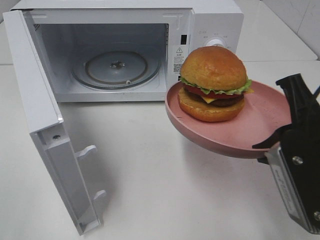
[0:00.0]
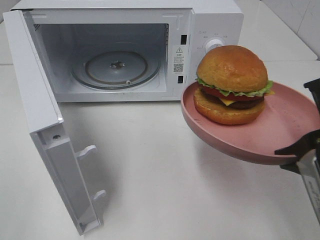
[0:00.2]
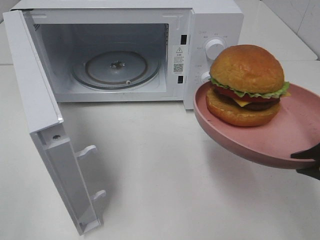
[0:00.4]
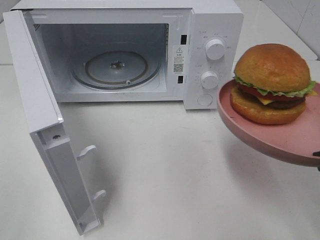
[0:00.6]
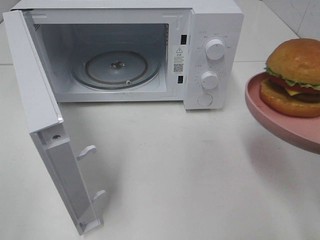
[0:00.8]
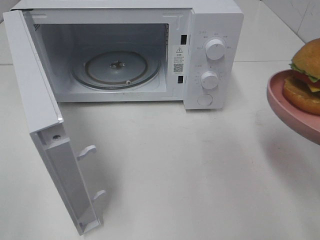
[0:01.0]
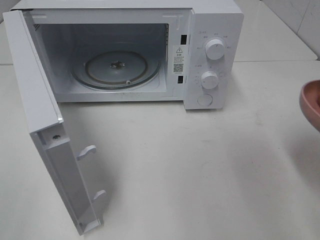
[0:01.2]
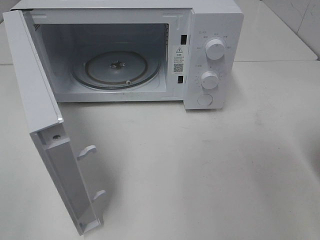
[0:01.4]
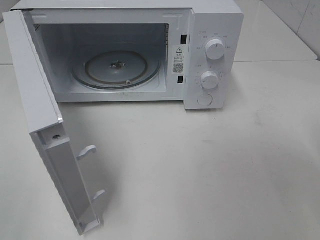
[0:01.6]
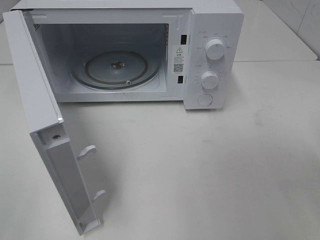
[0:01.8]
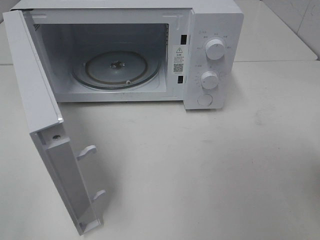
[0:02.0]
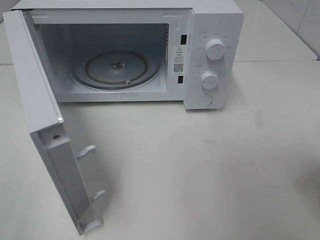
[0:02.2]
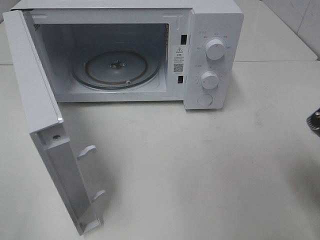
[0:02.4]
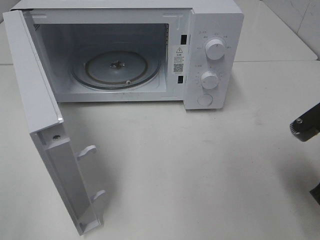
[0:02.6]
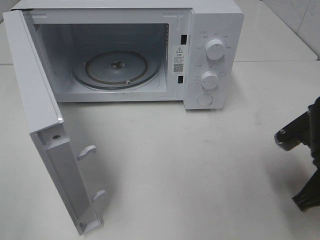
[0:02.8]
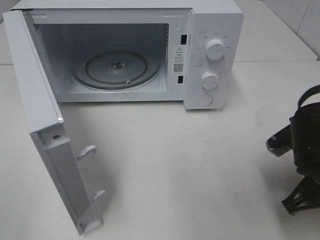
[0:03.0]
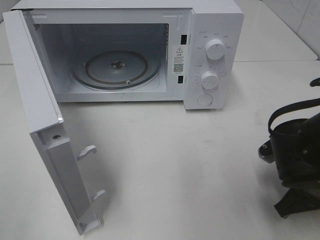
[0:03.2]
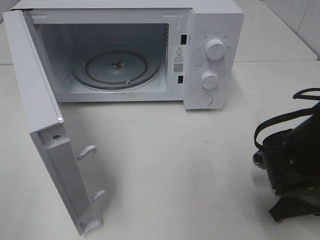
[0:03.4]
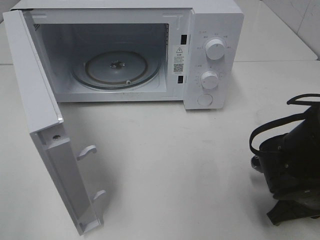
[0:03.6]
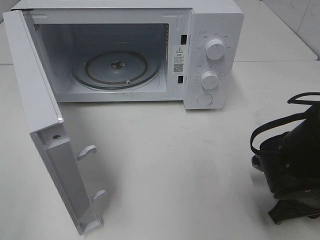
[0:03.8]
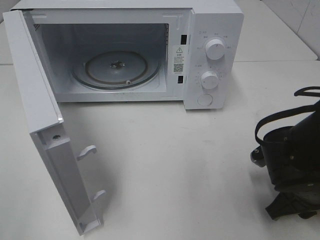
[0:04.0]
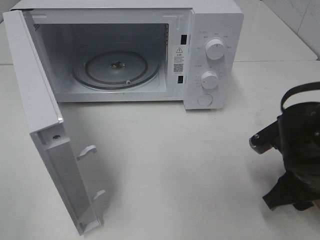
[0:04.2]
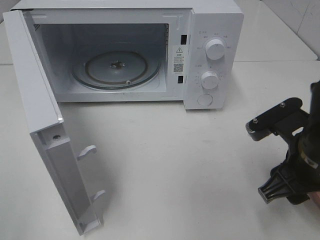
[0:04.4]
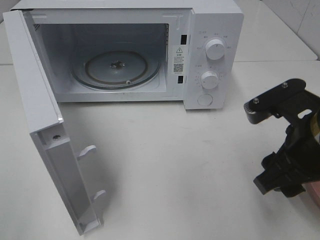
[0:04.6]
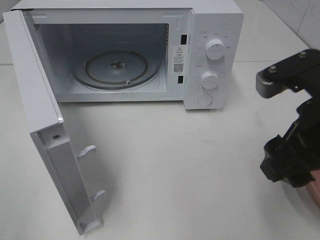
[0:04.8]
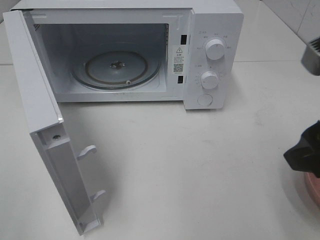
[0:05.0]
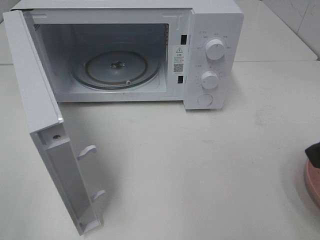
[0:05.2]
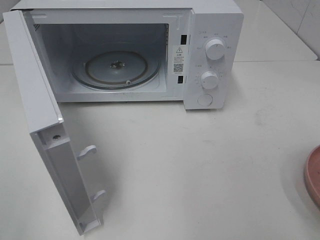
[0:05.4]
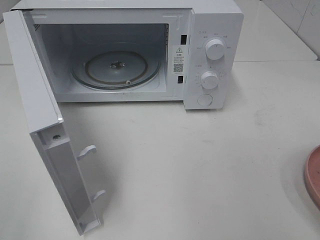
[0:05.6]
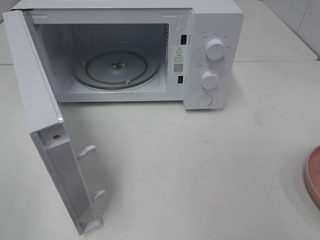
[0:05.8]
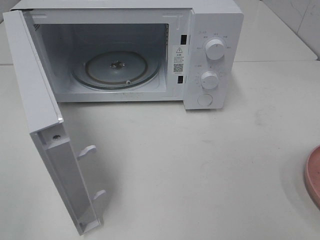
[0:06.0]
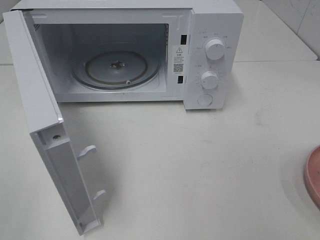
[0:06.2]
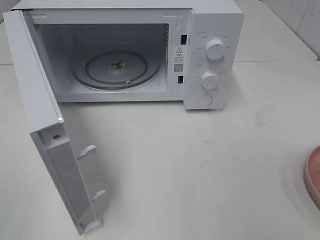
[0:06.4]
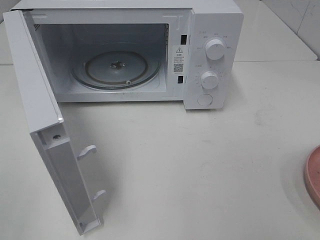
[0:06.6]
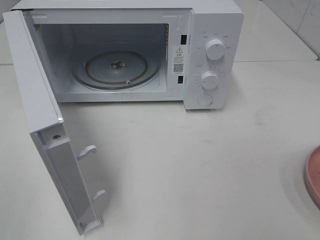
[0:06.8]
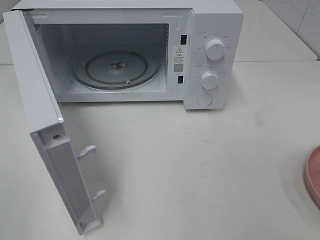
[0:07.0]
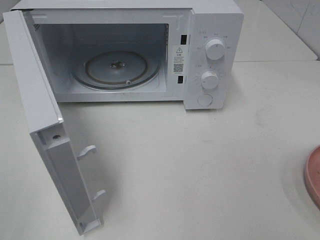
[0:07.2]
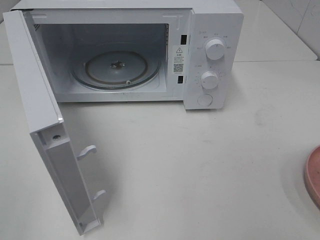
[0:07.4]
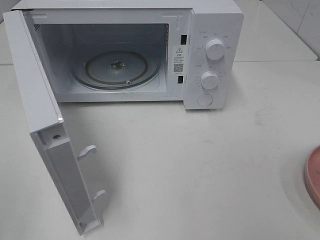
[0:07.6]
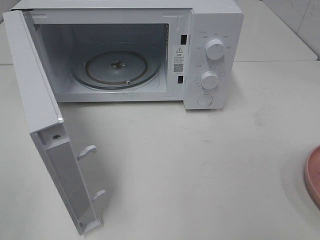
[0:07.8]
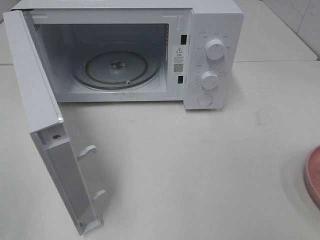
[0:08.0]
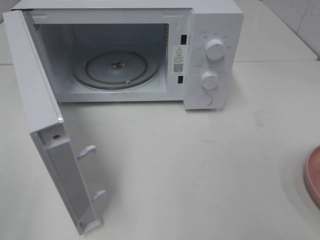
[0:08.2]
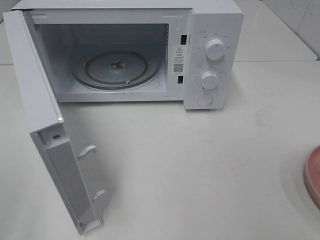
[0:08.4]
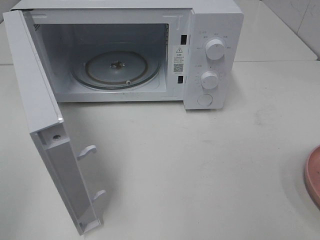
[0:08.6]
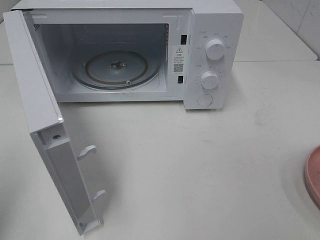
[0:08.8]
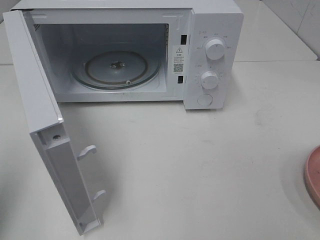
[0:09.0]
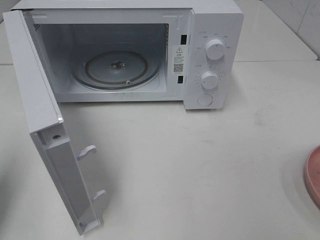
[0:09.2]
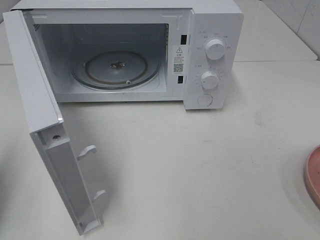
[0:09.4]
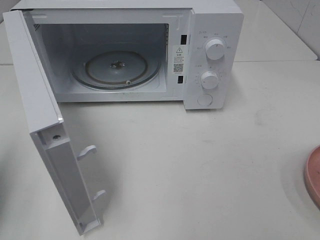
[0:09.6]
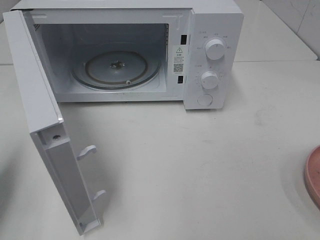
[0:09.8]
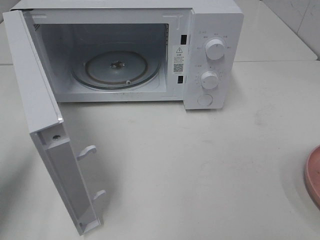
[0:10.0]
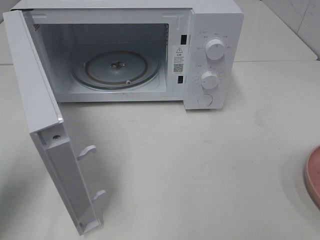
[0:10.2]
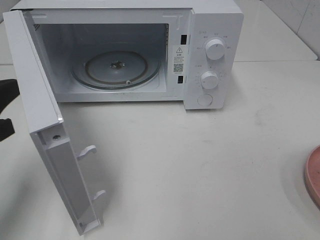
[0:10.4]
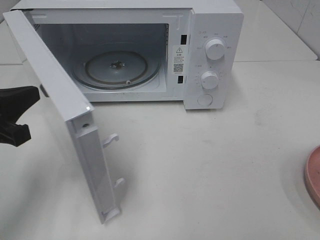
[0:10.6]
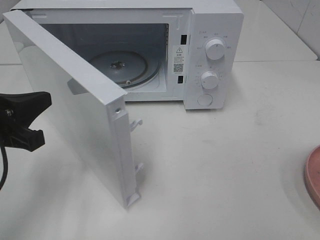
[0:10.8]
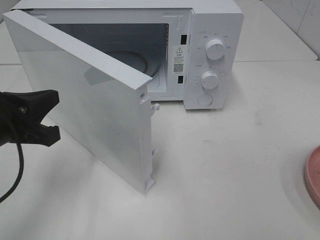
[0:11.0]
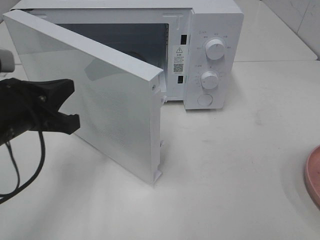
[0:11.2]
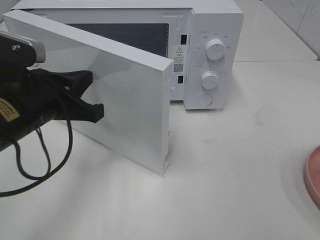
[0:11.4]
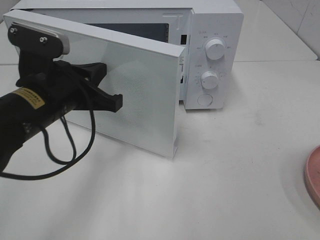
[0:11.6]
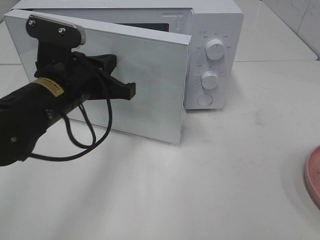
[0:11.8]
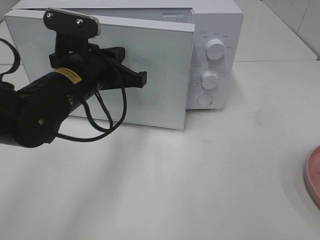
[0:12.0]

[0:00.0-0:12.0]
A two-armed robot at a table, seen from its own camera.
Task of the whole recording: Heat the burger.
Step, 0:00.0 to 0:04.2: Right hand: place the plate on the table.
0:00.0 to 0:01.6: The right gripper travels to the right by some 10 cm.
0:01.6 to 0:03.0: The right gripper shifts about 15 cm downward, forward and to the left.
0:03.0 to 0:04.4: The right gripper opens.
0:04.4 to 0:06.0: The right gripper is displaced backward, upward and to the right by some 20 cm.
0:07.6 to 0:09.0: The left gripper is displaced forward by approximately 10 cm, and closes its fingers.
0:09.0 to 0:10.4: The left gripper heads downward, forward and to the right, covering roughly 15 cm.
0:10.4 to 0:12.0: The left gripper shifts about 20 cm to the right and forward.

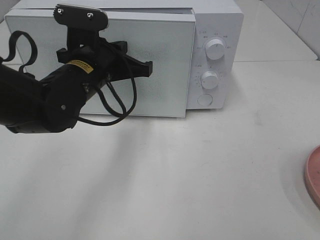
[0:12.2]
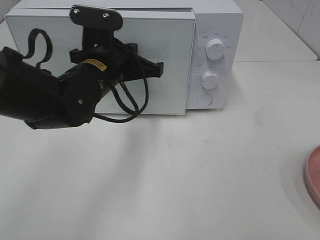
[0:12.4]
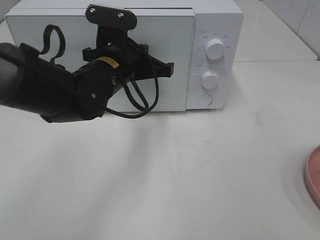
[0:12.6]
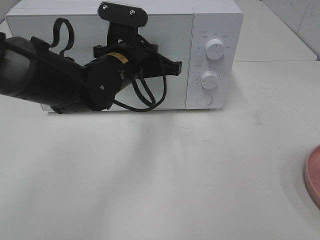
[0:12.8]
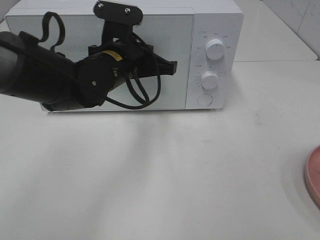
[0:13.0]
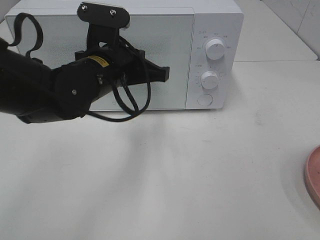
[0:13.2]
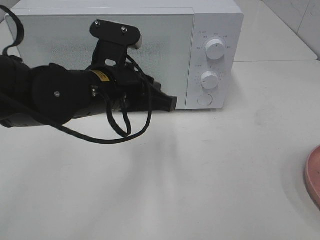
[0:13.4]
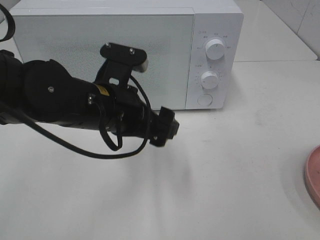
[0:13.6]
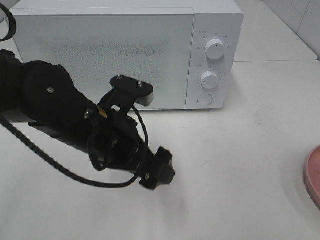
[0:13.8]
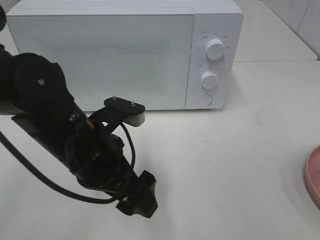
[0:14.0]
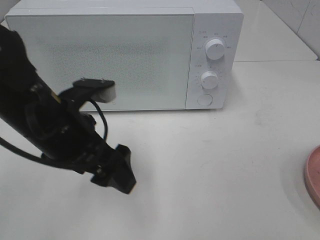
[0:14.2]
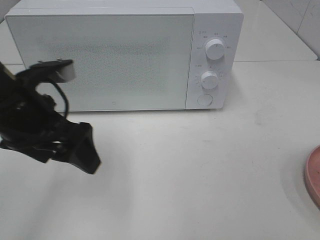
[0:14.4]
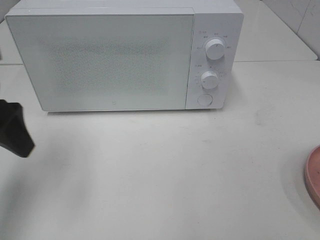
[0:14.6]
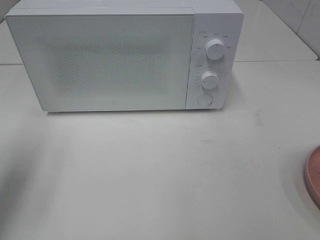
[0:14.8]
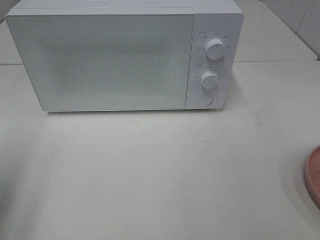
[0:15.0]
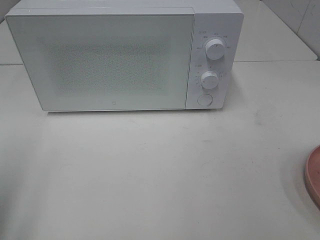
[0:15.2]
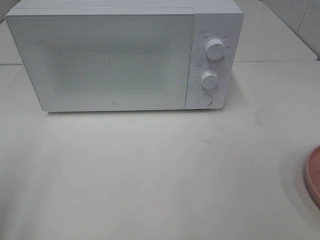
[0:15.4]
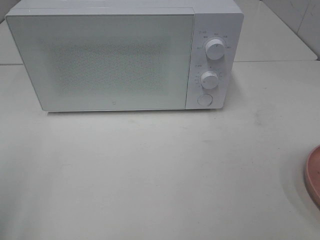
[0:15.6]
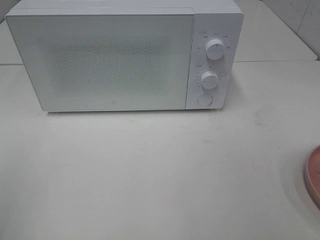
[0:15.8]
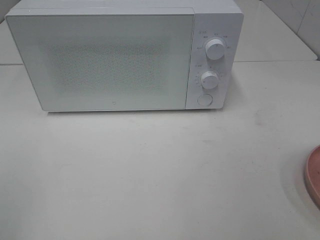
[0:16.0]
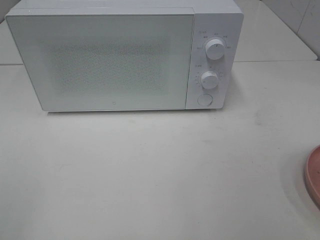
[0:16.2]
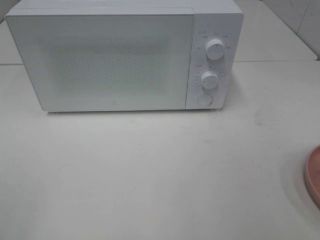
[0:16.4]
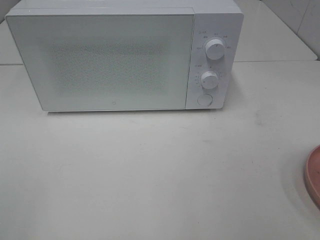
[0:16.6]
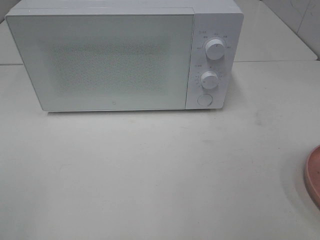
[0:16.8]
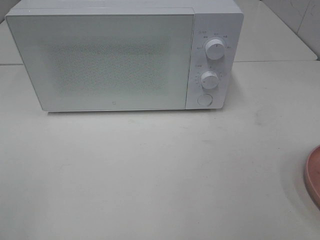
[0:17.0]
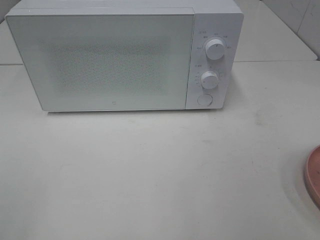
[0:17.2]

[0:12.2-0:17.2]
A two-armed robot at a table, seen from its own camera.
Task of the whole recording: Heat the burger.
0:12.2 to 0:13.8: The left gripper shifts roughly 10 cm backward, and opens.
0:13.8 to 0:15.6: The left gripper goes about 30 cm to the left, backward and upward.

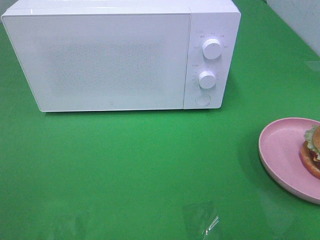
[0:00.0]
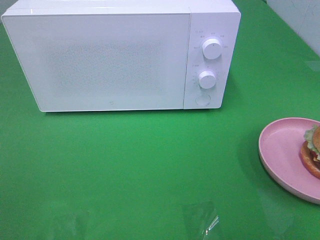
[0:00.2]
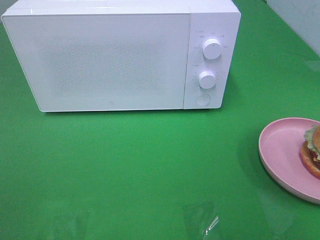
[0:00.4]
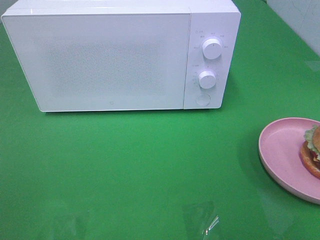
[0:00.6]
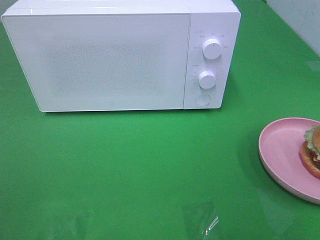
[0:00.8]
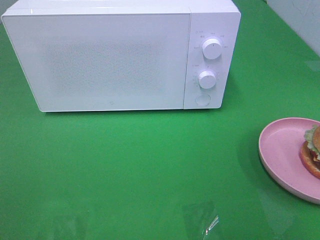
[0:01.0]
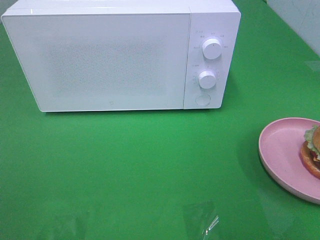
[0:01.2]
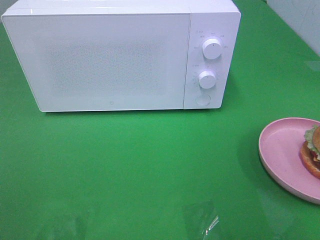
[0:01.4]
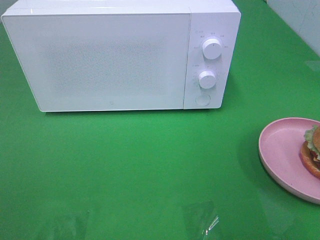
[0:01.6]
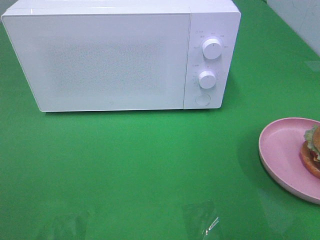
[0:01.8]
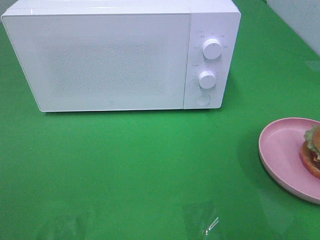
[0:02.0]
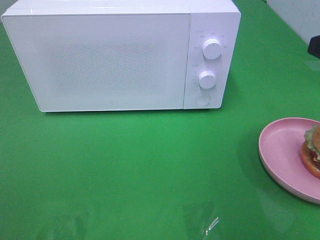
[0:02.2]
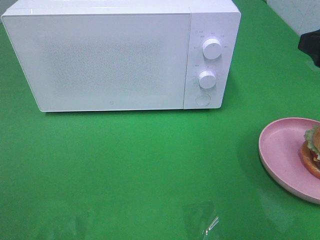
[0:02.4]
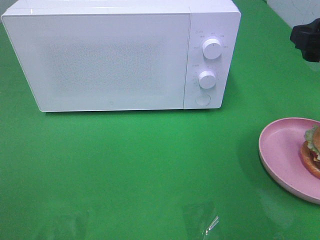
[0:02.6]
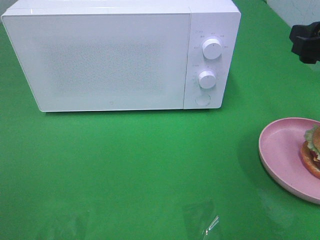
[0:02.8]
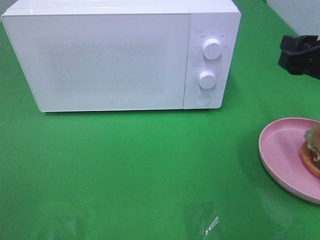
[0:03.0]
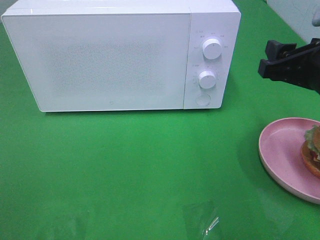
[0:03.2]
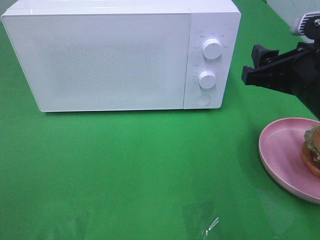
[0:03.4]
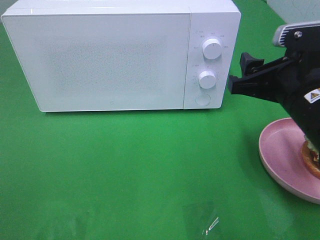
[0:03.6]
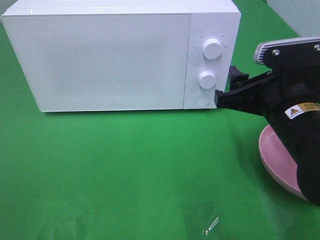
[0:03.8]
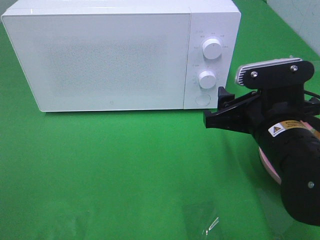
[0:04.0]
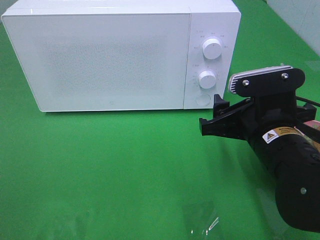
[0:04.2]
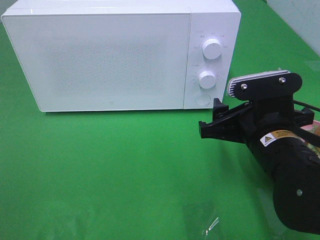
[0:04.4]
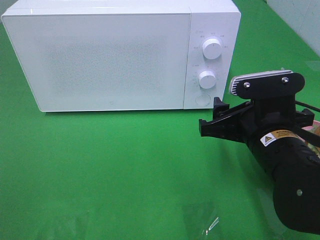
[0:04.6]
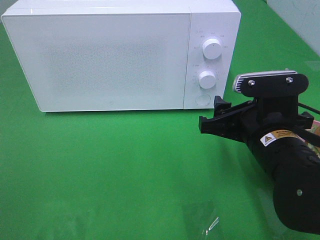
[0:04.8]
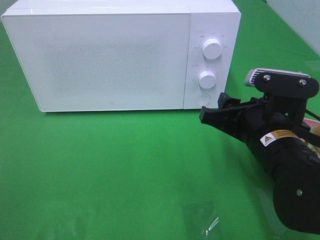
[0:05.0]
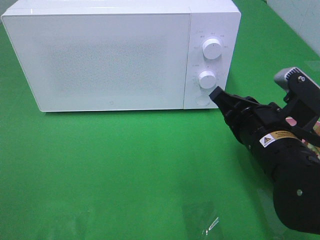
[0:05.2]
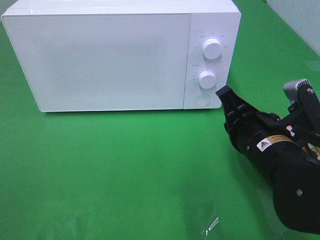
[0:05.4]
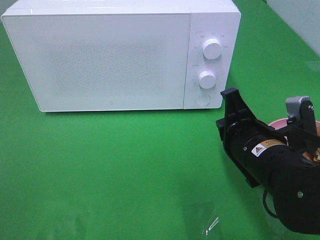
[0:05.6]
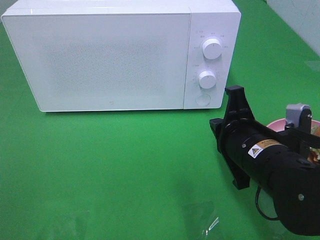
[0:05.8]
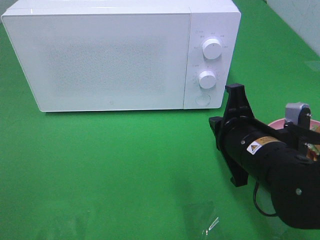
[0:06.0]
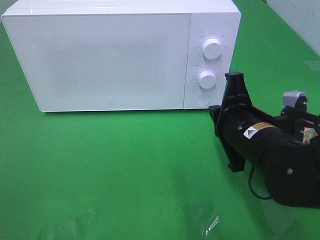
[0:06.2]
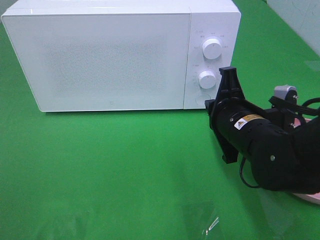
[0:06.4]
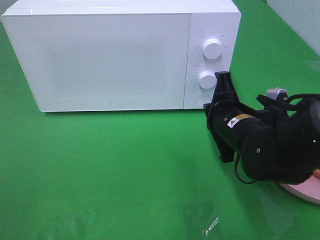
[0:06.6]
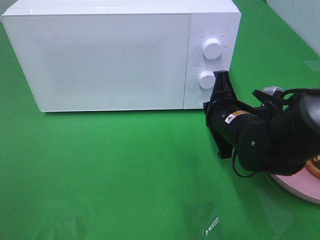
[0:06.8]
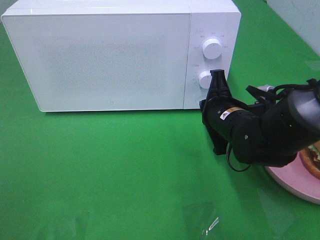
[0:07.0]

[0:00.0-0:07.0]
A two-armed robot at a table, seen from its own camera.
Task of the whole recording: Heat the burger.
0:01.4 to 0:02.8: The right gripper is displaced forward by about 15 cm.
0:02.8 to 0:04.2: The right gripper goes approximately 15 cm to the left and downward.
0:04.2 to 0:05.6: The right gripper closes.
0:05.6 to 0:07.0: The right gripper travels forward by some 10 cm.
